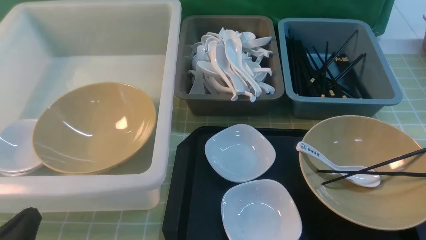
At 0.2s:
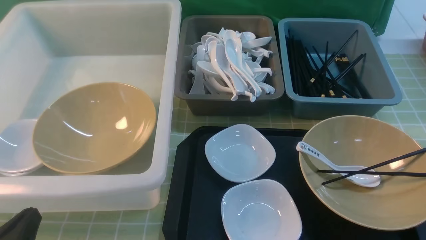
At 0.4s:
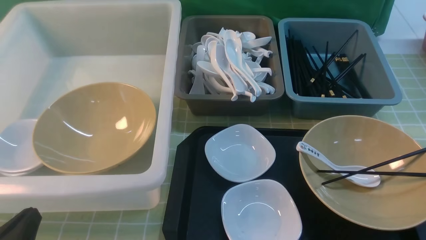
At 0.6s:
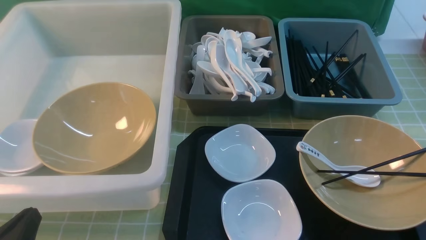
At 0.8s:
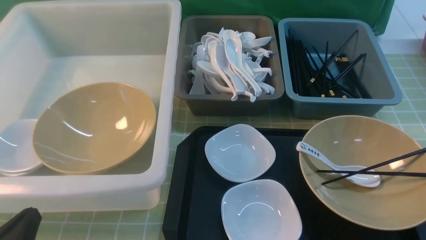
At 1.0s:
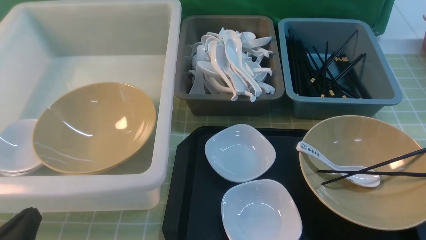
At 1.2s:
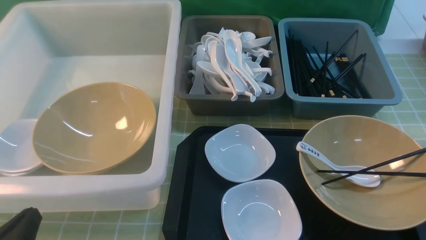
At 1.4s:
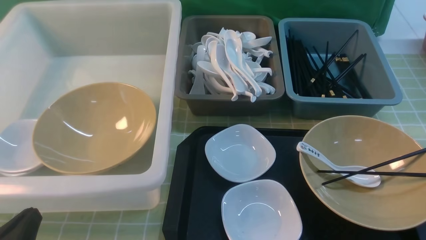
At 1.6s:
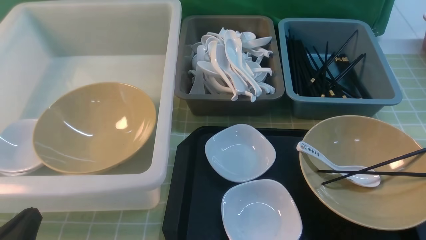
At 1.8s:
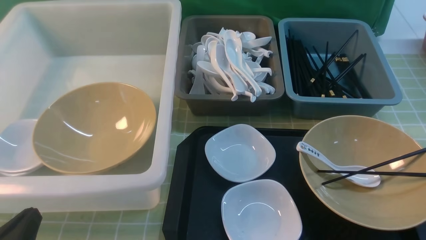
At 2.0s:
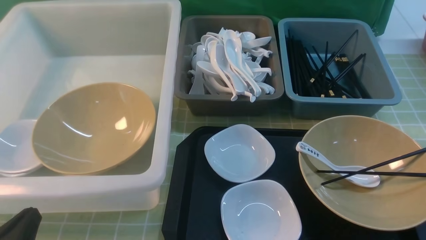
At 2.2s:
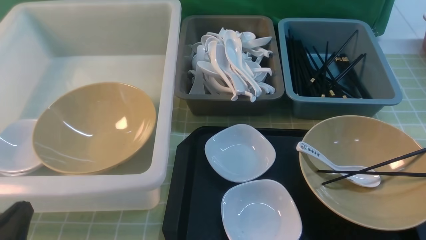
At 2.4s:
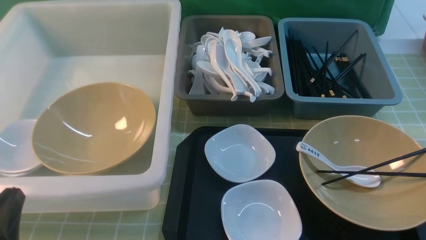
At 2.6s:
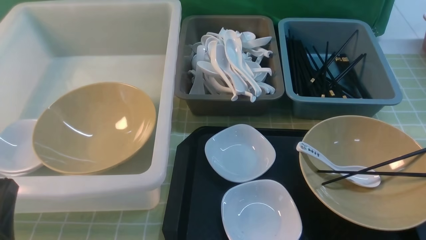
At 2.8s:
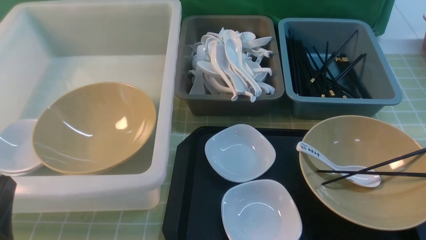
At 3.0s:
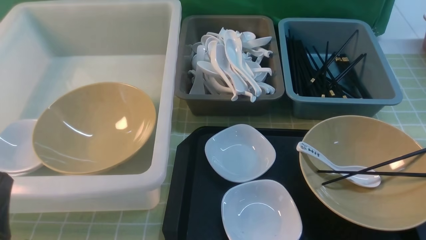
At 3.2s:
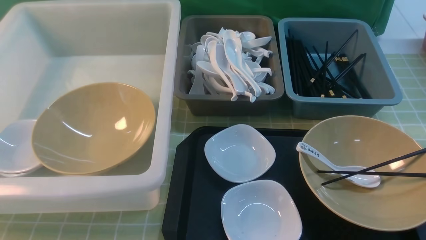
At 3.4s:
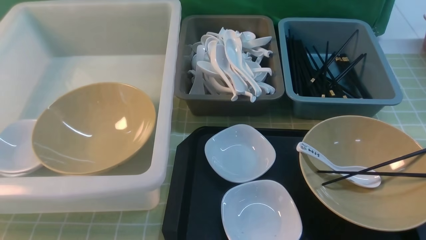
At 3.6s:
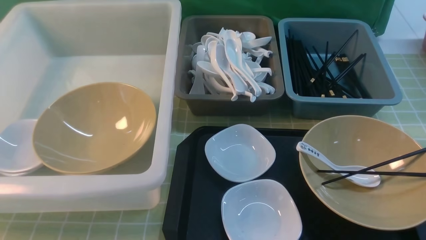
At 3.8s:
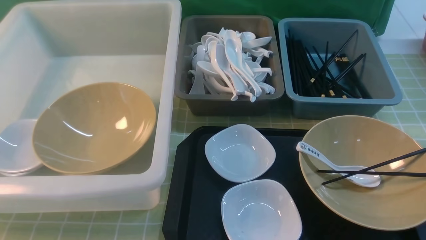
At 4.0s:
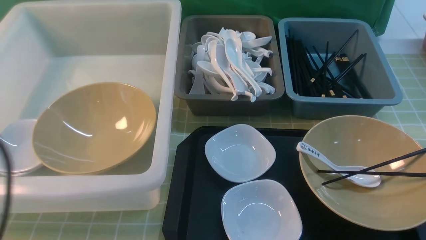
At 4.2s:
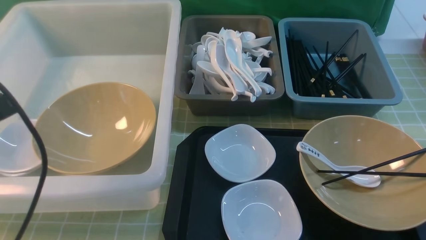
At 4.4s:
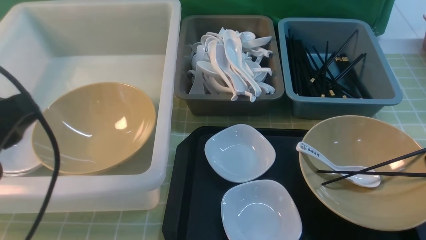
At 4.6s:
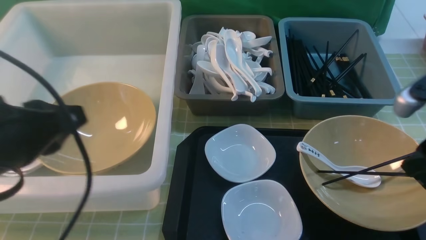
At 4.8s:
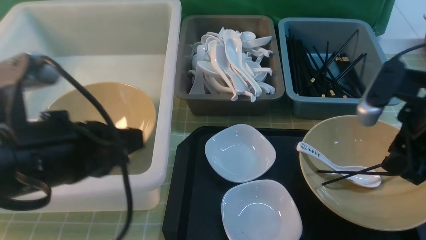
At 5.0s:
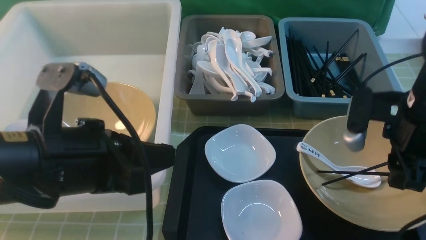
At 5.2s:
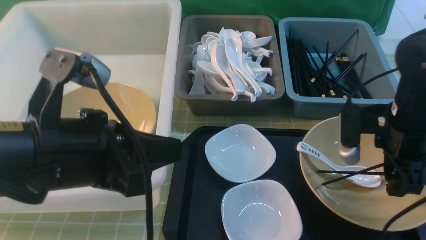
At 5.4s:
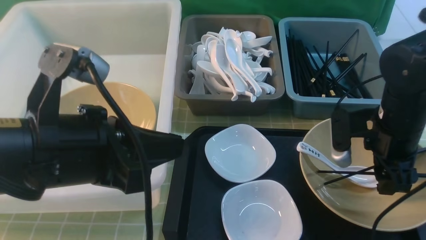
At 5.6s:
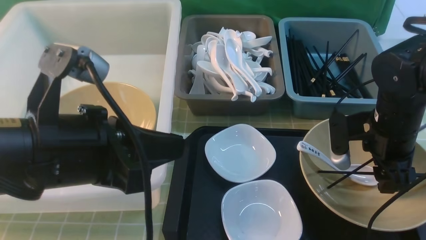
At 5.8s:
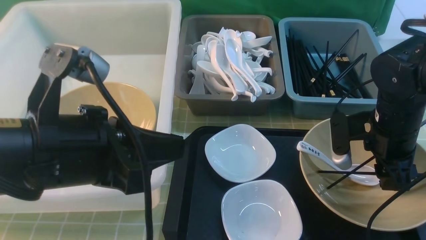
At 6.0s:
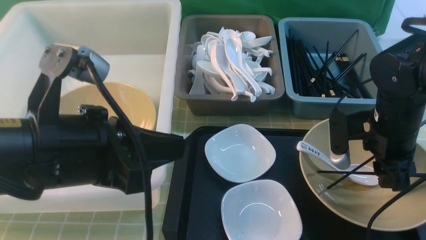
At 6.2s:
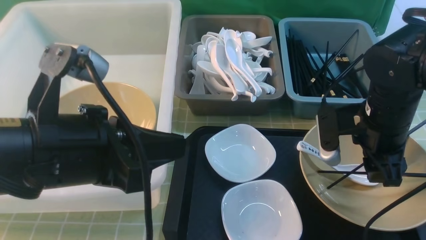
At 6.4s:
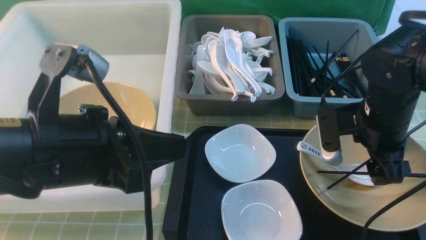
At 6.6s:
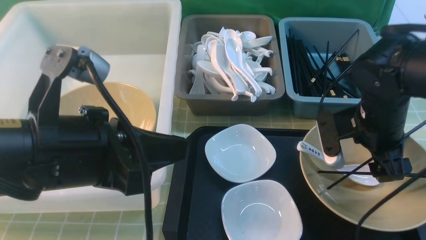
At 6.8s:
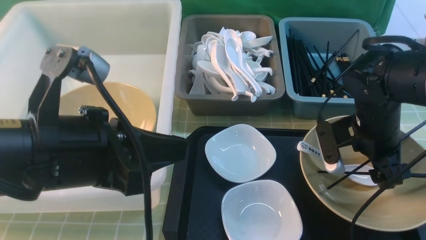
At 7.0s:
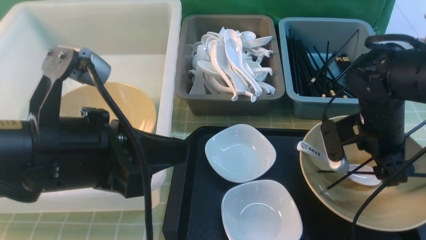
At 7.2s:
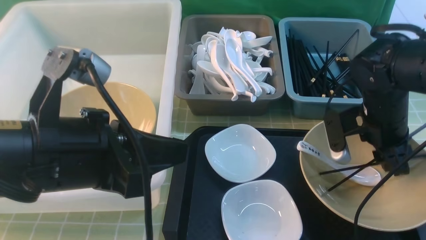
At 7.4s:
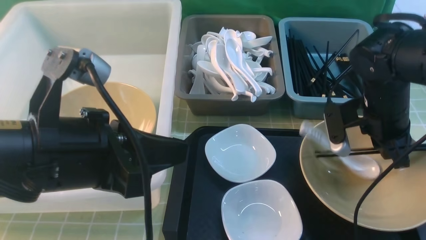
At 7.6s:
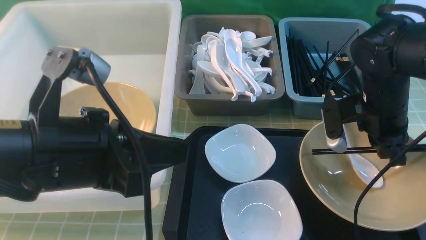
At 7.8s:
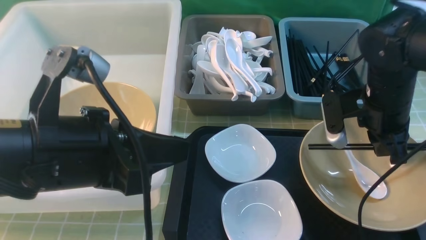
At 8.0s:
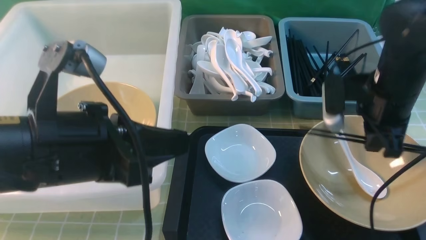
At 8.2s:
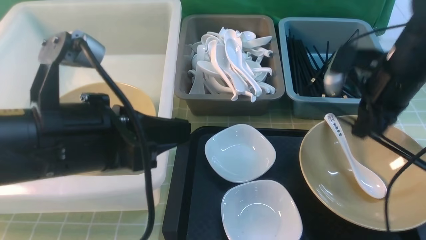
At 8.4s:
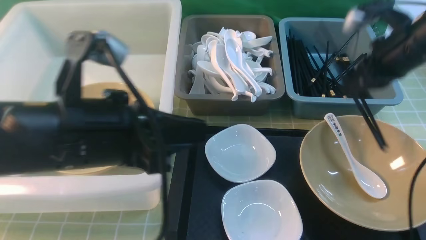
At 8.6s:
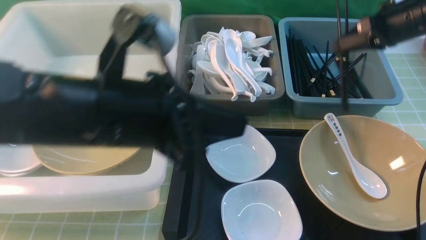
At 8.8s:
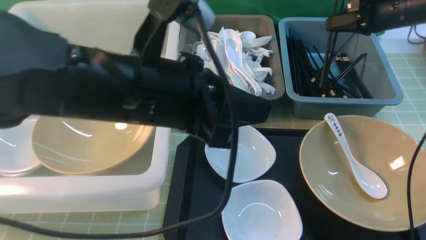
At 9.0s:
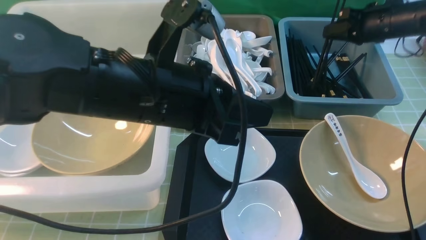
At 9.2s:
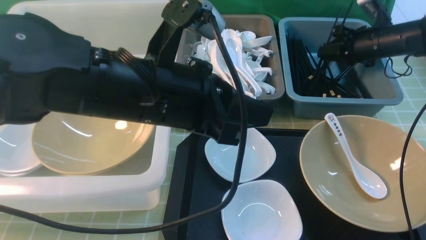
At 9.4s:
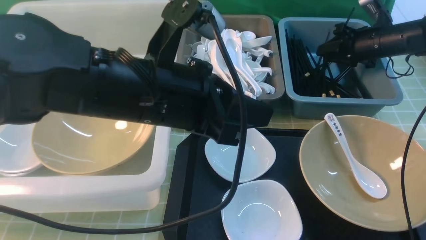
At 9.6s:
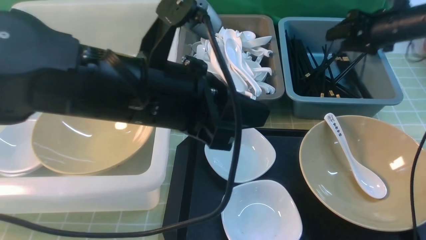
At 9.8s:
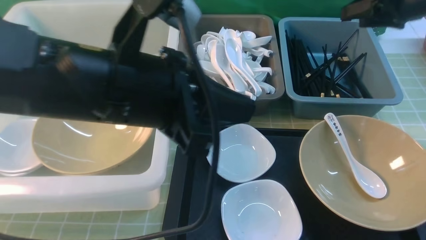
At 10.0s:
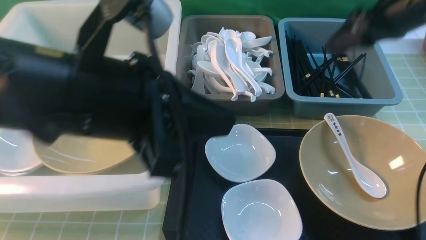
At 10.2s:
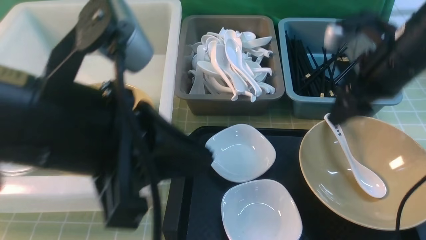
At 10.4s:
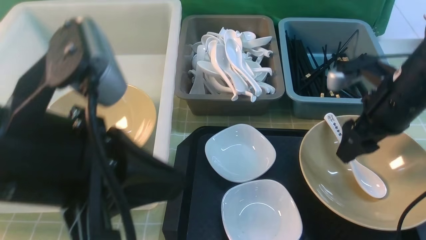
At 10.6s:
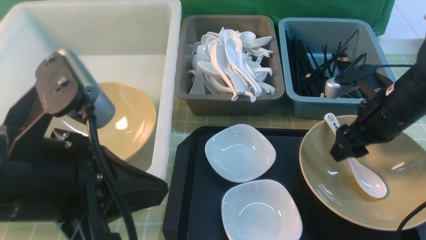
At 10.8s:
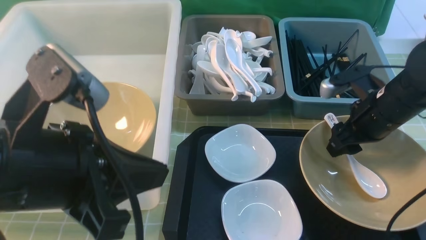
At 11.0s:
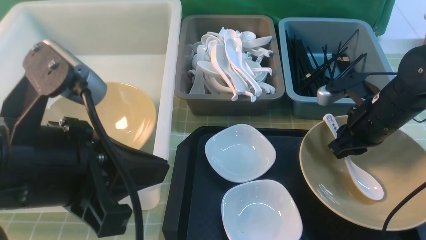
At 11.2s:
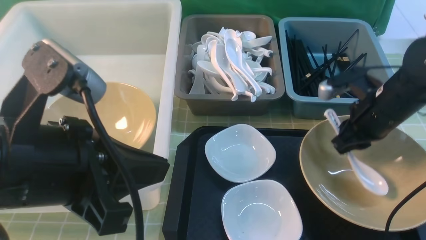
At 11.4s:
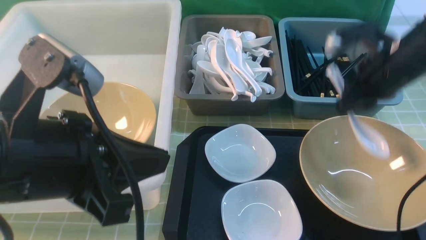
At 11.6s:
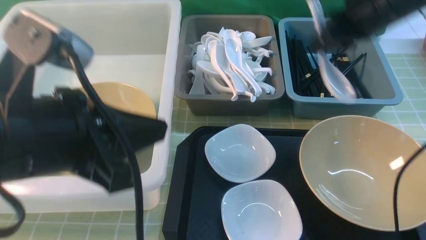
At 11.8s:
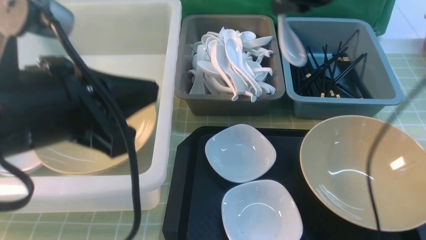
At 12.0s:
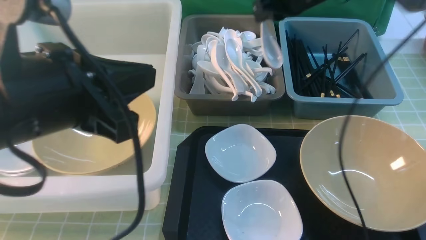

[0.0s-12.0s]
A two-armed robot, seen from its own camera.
Task of the whole recording: on green table put chopsticks spoon bowls plates into blue grey white boxes.
Step, 0.0s to 8.0s: use the right arm to grab the chopsticks.
Step, 8.2s to 9.6s: use the right arm to put the chopsticks into the small storage box on the right.
Step, 9.8s to 11.4s: use the right arm to grab the soup spoon in the middle.
0.0s to 1.6s: The two grippers keep their place.
3.0s to 4.4s: The left gripper goes about 15 cm upward and forward.
4.4s to 6.0s: The right gripper shifts roughly 15 cm forward, downward and to the left; the left gripper travels to the right by approximately 10 cm.
6.0s to 7.6s: The right gripper closes up.
7.6s to 9.0s: The right gripper moves forward and to the right, roughly 20 cm. Meanwhile the left gripper travels to the right and forward by about 10 cm.
9.0s to 10.4s: The right gripper heads backward and to the left, covering roughly 20 cm, and opens its fingers. Meanwhile the left gripper goes approximately 10 cm backward and to the left.
10.4s to 12.0s: The right gripper shifts roughly 20 cm forward, to the left and upward, and closes.

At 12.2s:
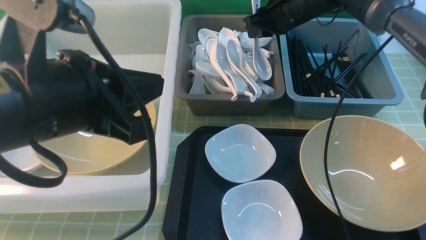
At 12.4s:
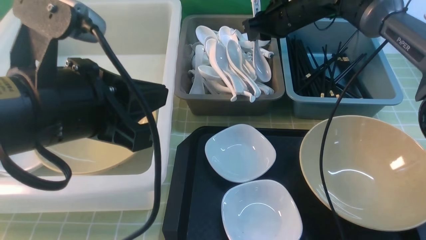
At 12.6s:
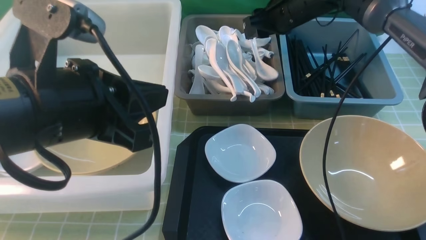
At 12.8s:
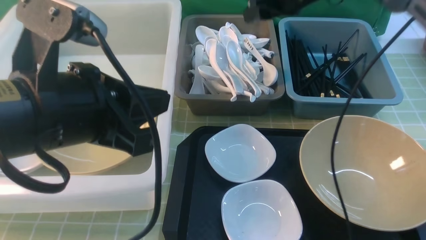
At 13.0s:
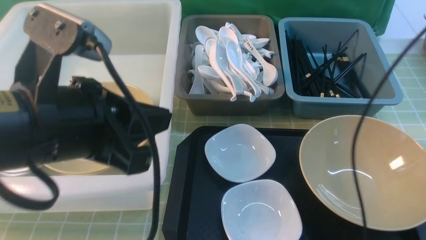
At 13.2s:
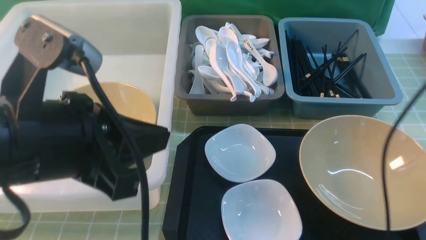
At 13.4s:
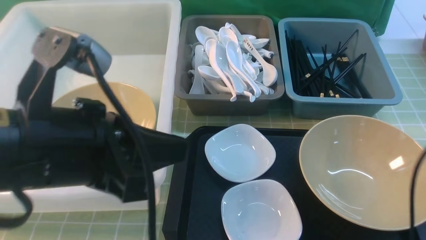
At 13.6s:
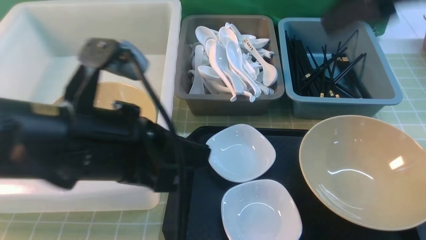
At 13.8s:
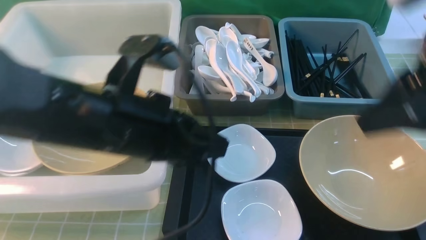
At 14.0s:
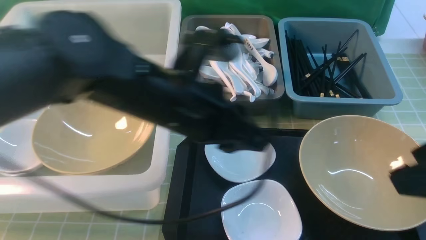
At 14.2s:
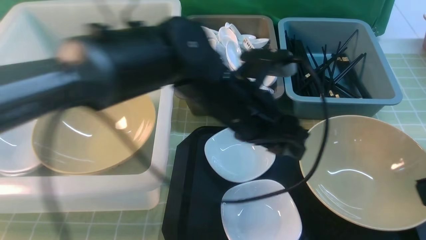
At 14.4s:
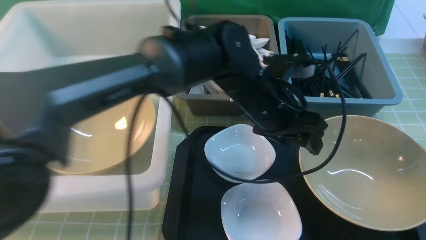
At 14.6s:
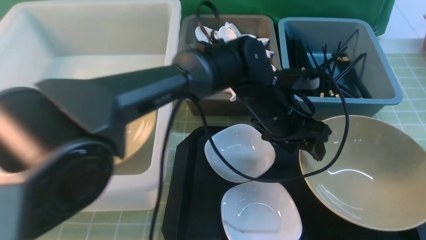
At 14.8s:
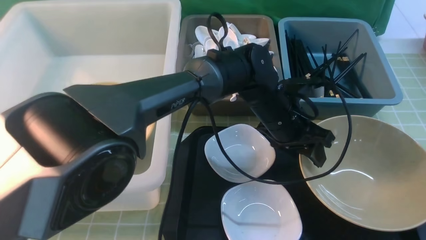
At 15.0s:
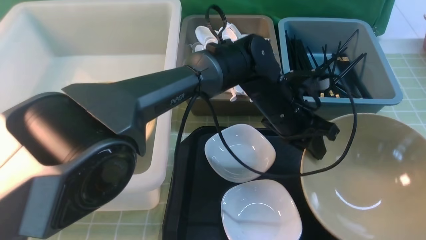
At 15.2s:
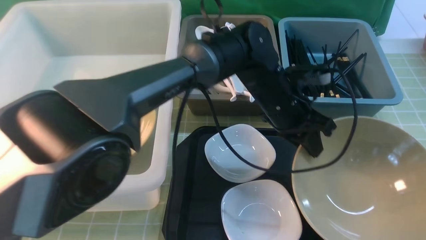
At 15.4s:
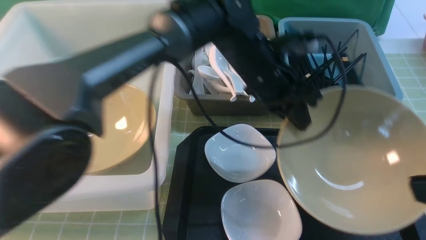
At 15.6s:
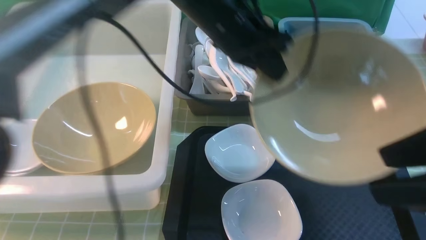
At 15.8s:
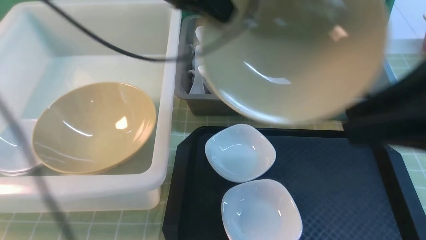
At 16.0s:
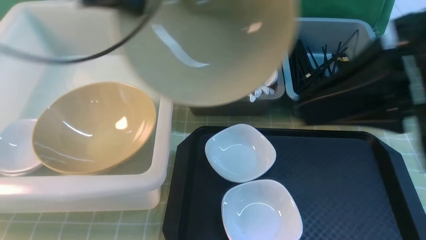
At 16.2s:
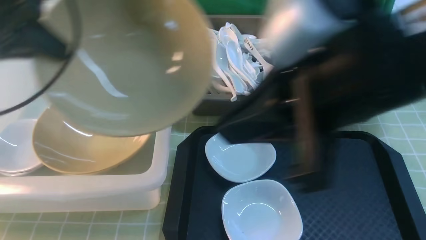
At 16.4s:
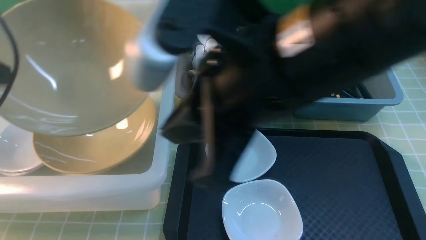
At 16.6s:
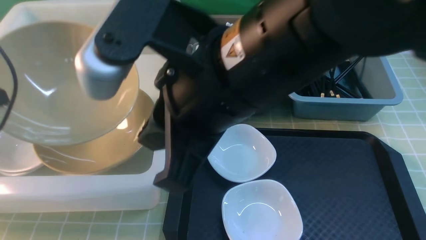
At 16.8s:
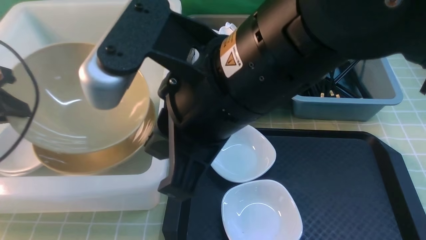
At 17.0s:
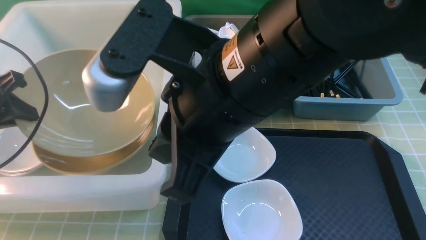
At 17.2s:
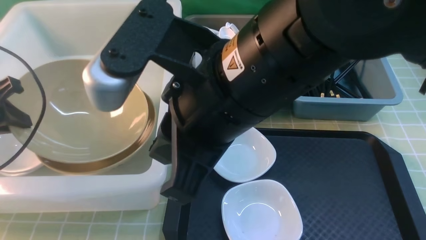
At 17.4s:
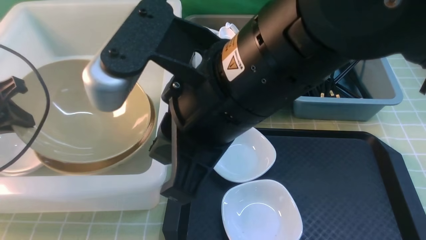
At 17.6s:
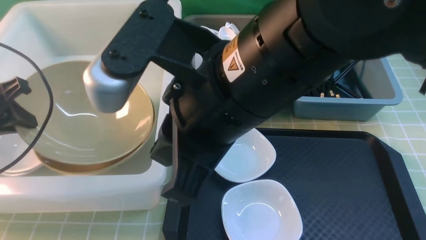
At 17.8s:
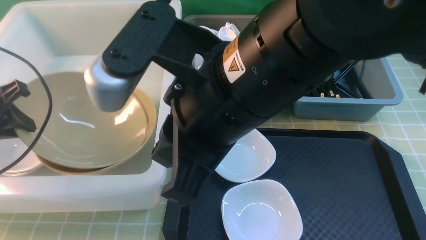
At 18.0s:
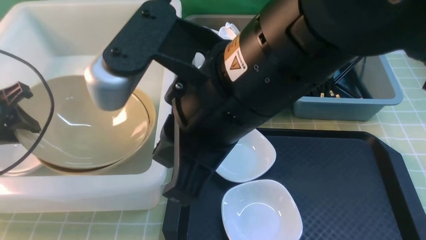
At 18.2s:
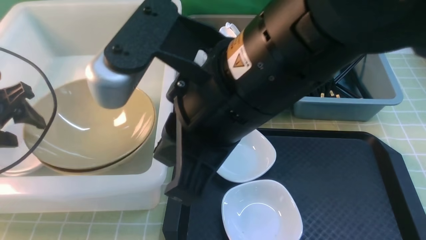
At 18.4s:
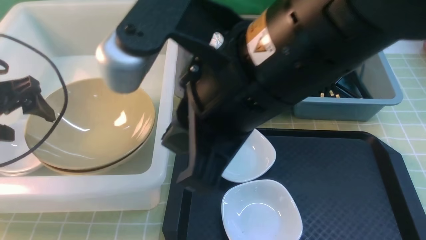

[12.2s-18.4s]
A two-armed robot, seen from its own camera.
Task of the whole recording: on green table put chopsticks spoon bowls plates into blue grey white boxes.
Step, 13.2s to 15.4s: use the left arm to grab the yellow noodle bowl on the left.
Step, 15.6s to 18.2s: use the left arm to put the noodle bowl into the large storage box on the left.
12.2s to 13.8s: The left gripper is displaced to the right by approximately 5 cm. The right gripper shifts about 30 cm backward, and opens its fingers.
13.8s to 15.4s: The left gripper moves forward and to the right, roughly 20 cm, and opens and closes again; the right gripper goes approximately 10 cm backward.
15.4s to 16.8s: The left gripper travels to the left by roughly 40 cm. The right gripper moves to the left, about 25 cm, and closes.
16.8s to 18.4s: The left gripper opens up.
